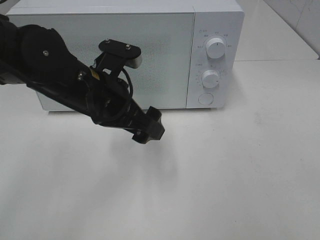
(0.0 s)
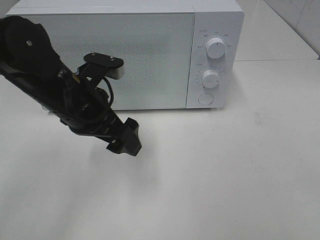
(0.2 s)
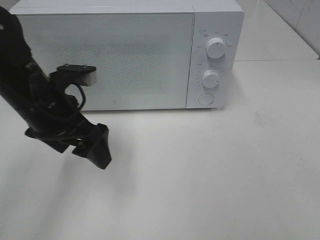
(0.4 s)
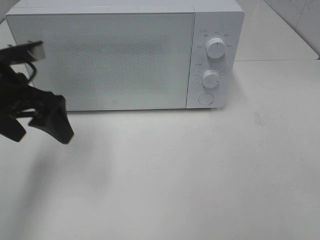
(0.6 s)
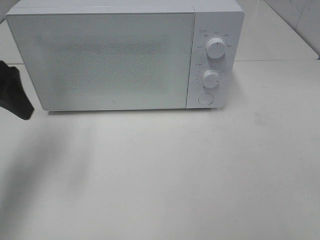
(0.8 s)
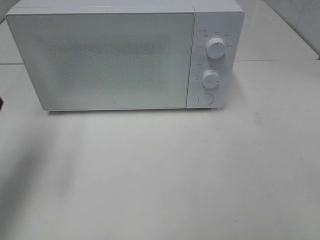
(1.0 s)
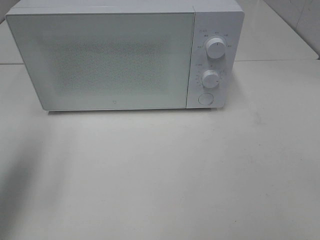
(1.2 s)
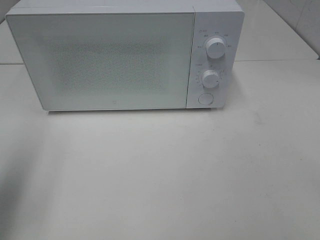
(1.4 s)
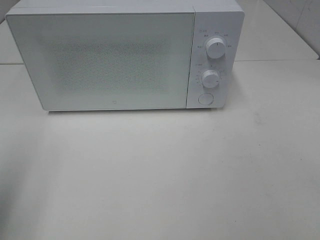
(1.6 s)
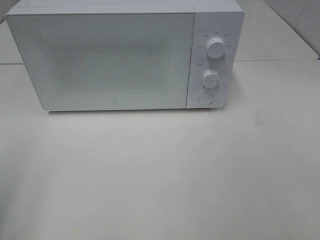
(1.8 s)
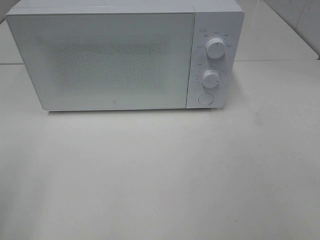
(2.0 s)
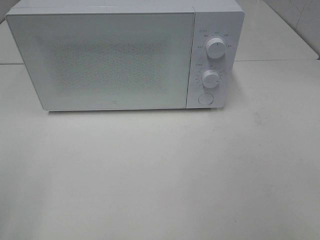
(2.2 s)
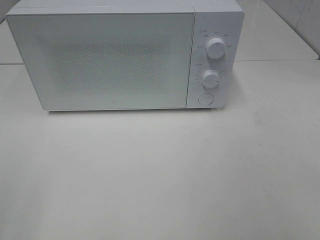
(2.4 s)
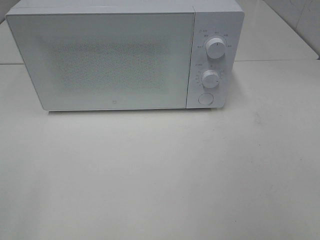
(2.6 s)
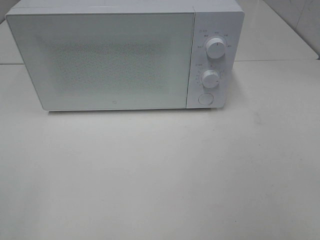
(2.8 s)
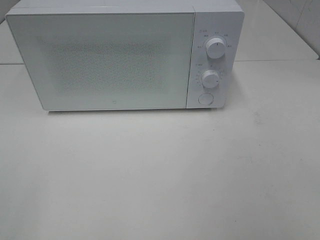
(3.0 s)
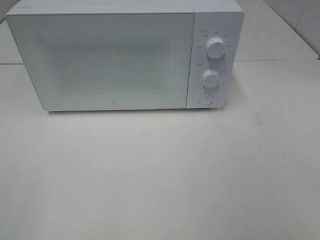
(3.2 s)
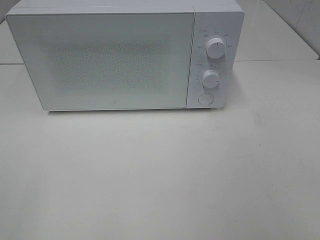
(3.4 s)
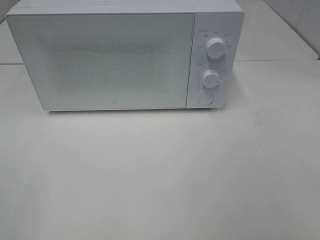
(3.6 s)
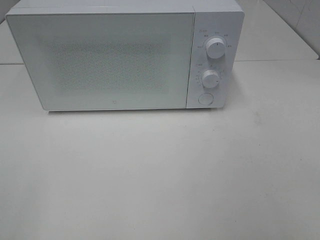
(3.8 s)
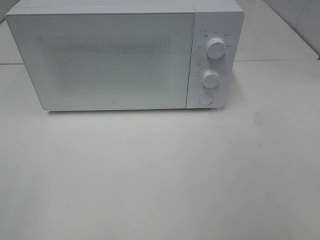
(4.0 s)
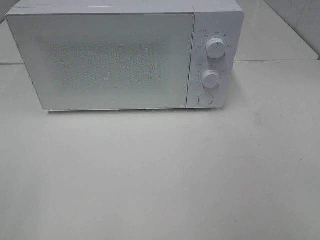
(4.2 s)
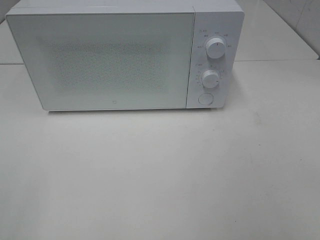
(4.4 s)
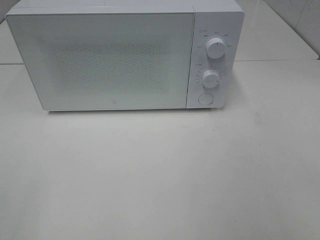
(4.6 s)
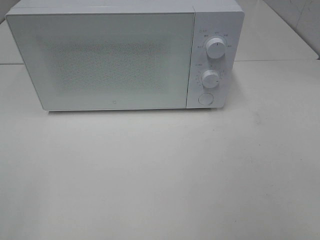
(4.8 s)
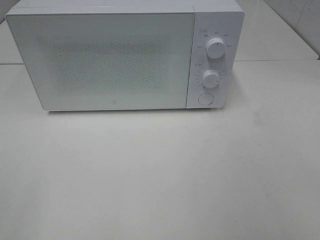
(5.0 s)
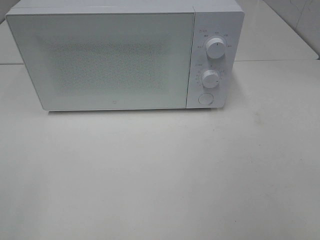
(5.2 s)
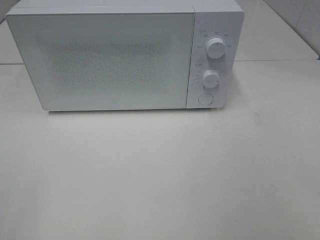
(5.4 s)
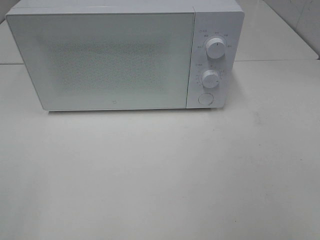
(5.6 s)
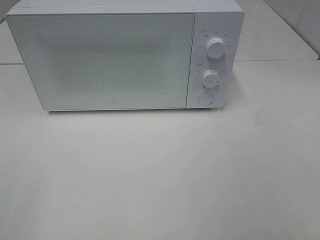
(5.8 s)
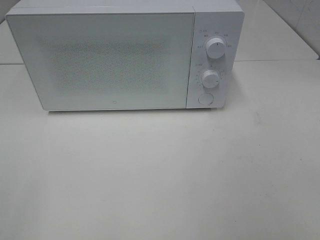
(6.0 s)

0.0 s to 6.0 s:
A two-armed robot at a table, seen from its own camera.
Task of the whole recording: Heat the burger.
0.0 to 1.6 s: The left gripper is displaced to the left, backward and upward by approximately 30 cm.
1.6 to 3.0 s: The left gripper is displaced backward by about 15 cm.
3.0 to 6.0 s: Both grippers stay put.

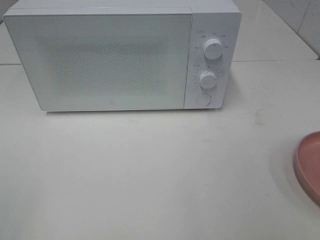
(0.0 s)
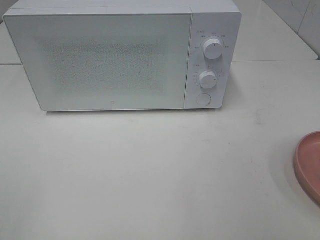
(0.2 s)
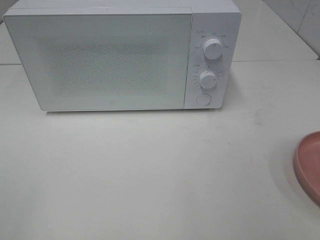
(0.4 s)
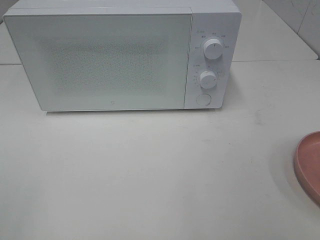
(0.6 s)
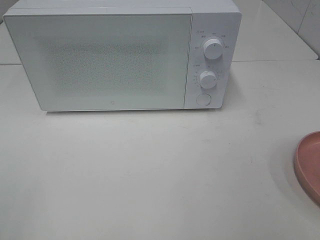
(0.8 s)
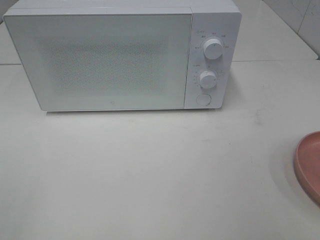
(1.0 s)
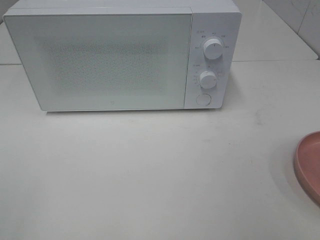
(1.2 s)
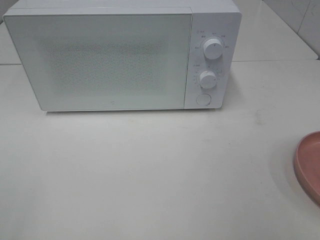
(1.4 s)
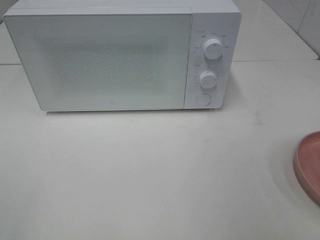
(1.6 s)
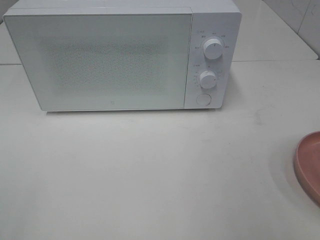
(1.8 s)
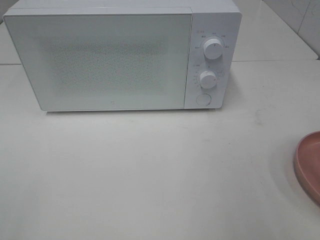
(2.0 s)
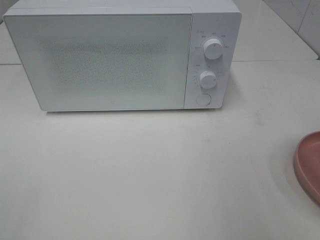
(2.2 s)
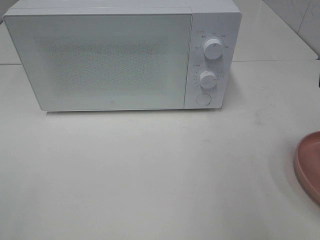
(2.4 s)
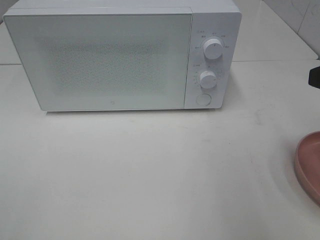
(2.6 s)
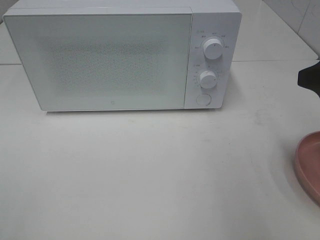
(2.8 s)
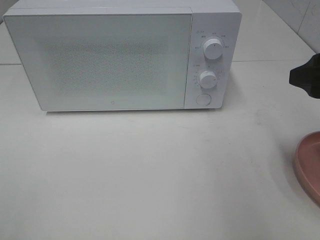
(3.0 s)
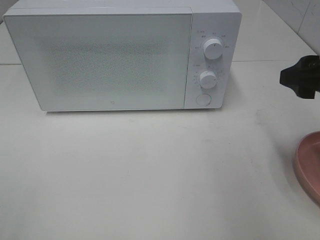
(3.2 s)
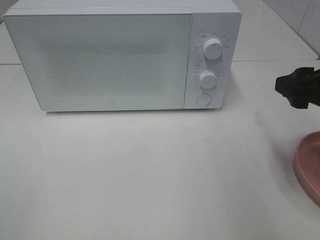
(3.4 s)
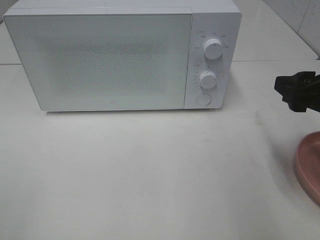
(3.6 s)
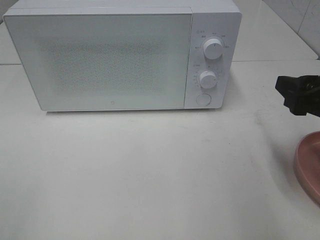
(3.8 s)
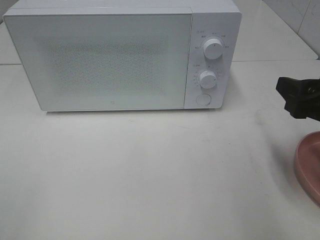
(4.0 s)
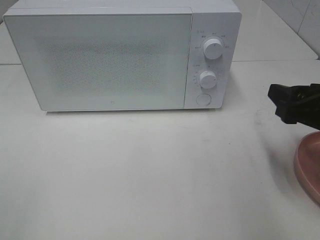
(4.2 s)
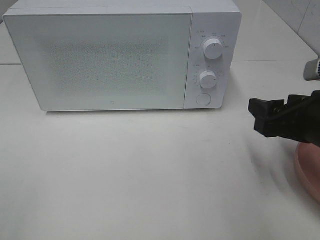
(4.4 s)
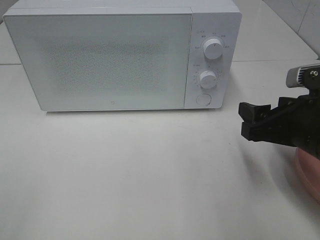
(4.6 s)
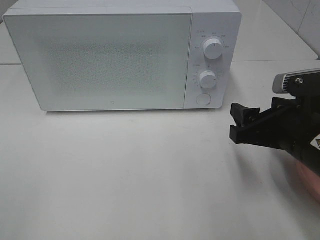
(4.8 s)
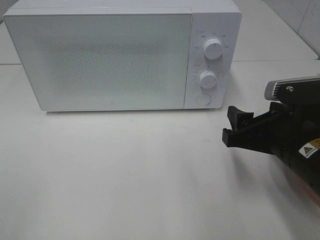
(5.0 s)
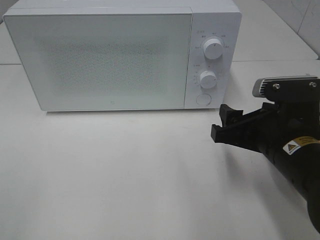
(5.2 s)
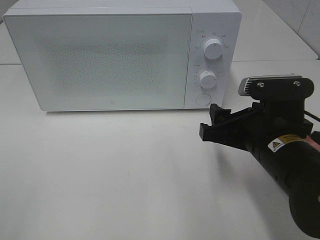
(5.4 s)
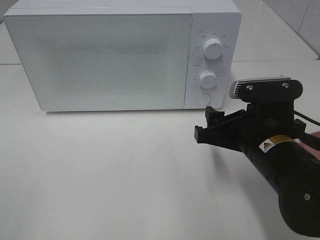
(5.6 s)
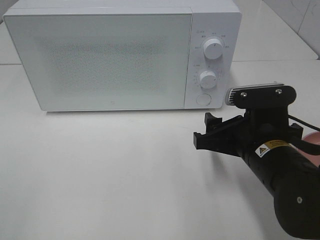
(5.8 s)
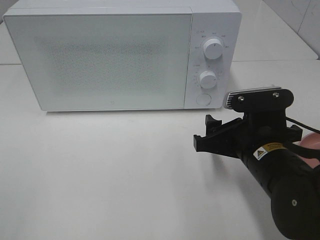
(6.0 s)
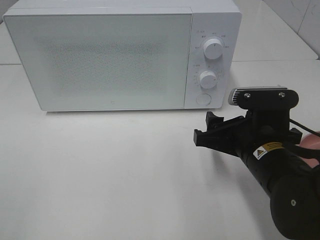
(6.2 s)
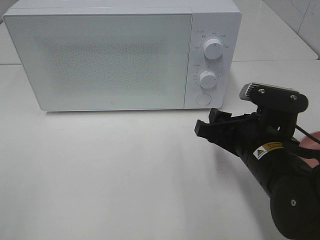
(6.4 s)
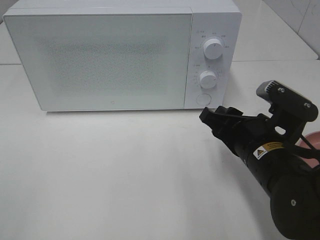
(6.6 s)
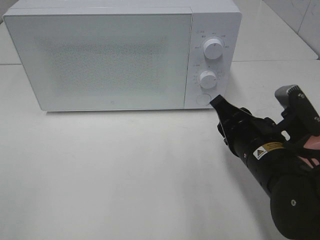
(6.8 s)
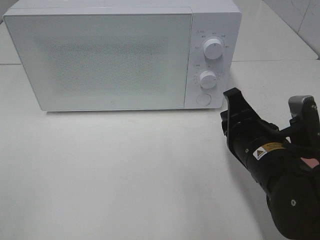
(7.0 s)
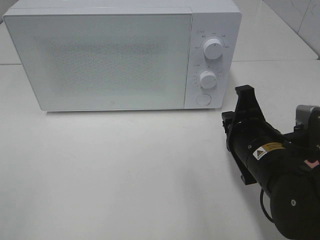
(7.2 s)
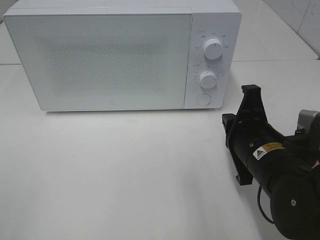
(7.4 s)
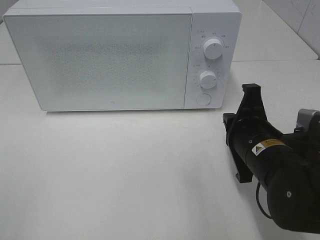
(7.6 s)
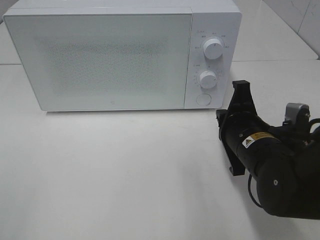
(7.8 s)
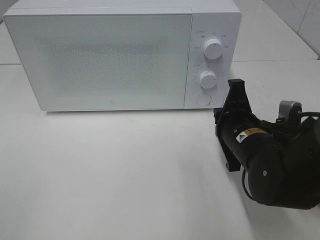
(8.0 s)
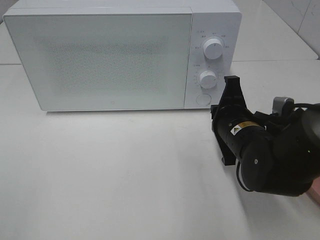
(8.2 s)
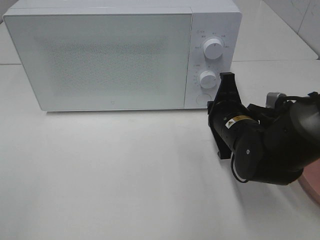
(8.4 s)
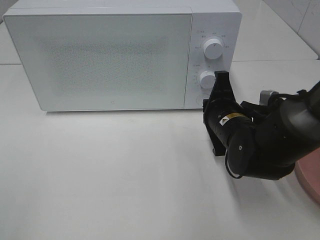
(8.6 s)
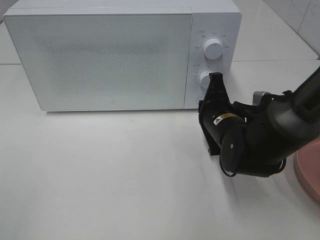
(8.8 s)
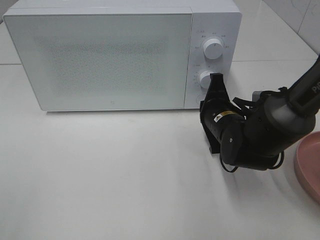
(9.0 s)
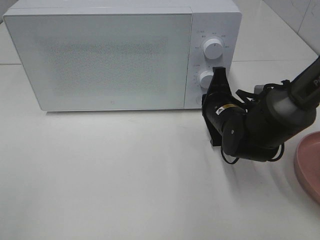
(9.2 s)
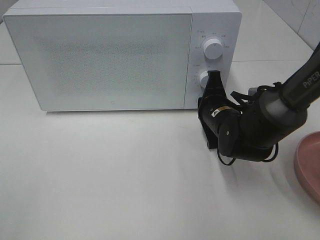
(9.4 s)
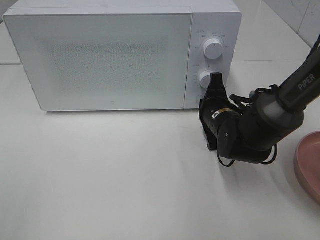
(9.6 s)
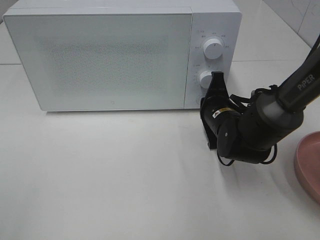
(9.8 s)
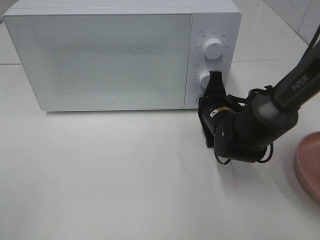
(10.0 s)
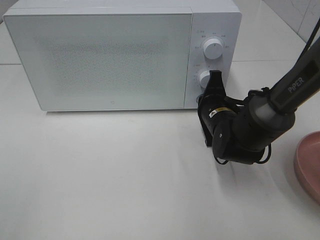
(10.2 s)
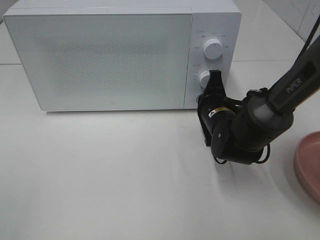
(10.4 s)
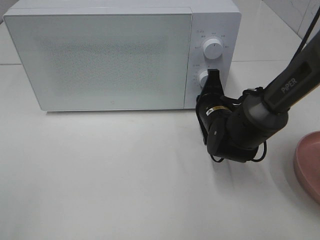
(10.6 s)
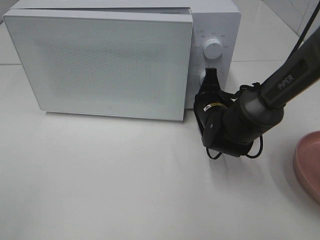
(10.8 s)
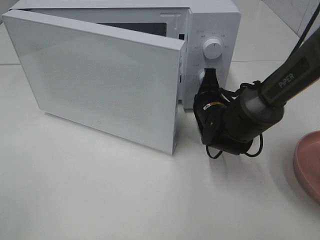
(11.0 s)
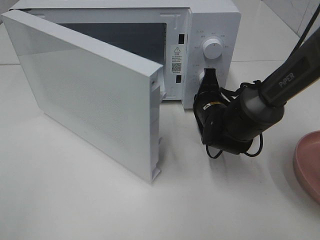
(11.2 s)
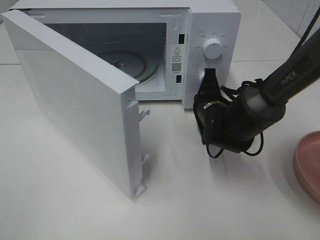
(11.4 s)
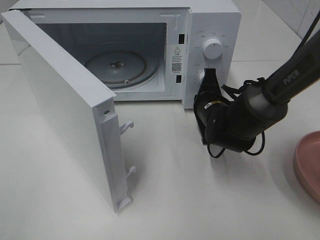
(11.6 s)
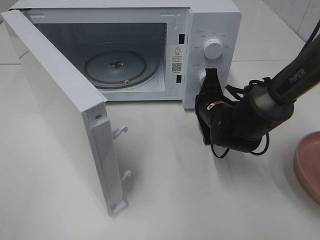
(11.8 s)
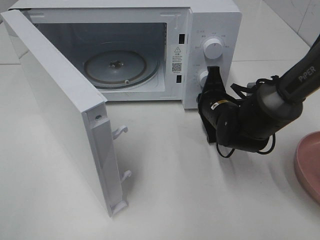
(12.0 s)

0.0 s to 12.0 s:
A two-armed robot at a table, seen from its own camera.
Task of the whole recording: Heat the burger.
1.6 to 3.0 s: The right gripper is displaced forward by about 15 cm.
3.0 to 4.4 s: The right gripper shifts some 10 cm downward.
4.4 to 6.0 s: The right gripper heads to the left, covering approximately 10 cm.
6.0 to 7.6 s: The right gripper closes its fingers.
7.6 to 9.0 s: The right gripper is displaced forward by some 10 cm.
9.0 to 10.4 s: The grippers stay close to where they were, moving slightly.

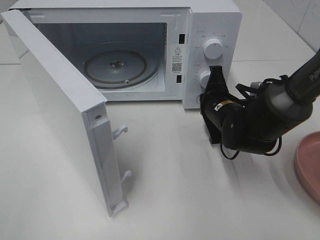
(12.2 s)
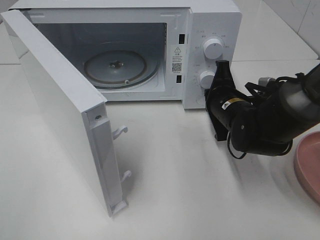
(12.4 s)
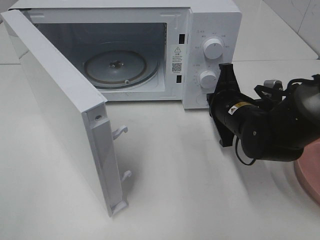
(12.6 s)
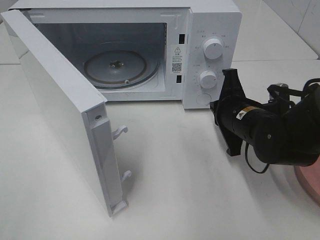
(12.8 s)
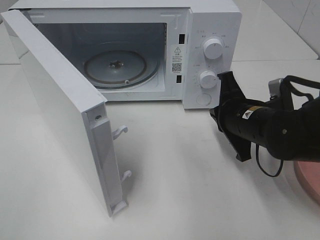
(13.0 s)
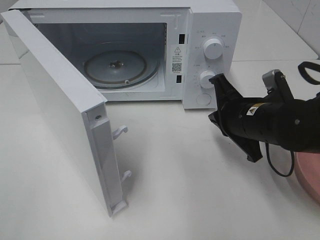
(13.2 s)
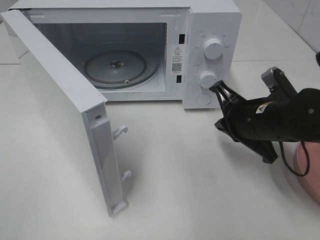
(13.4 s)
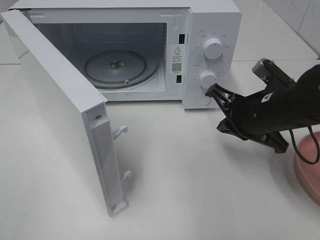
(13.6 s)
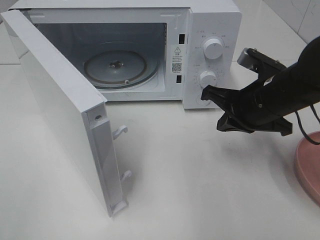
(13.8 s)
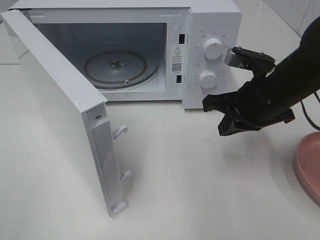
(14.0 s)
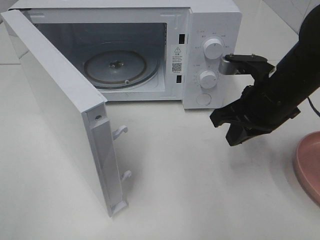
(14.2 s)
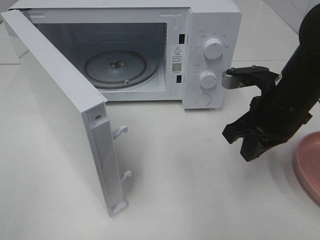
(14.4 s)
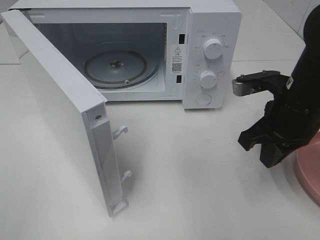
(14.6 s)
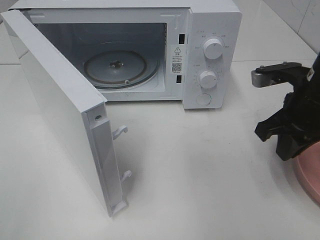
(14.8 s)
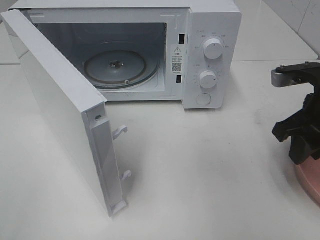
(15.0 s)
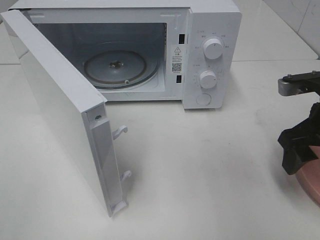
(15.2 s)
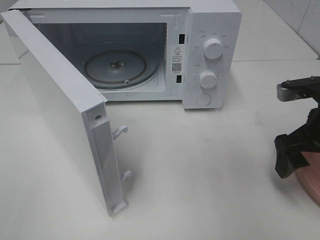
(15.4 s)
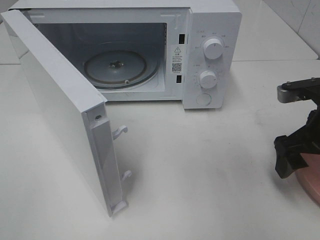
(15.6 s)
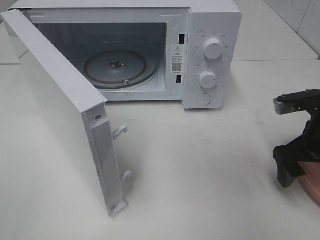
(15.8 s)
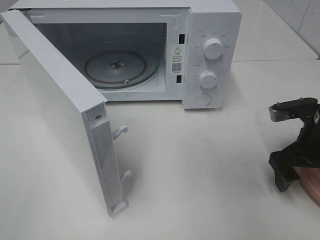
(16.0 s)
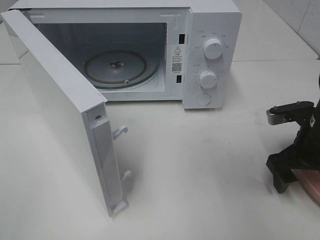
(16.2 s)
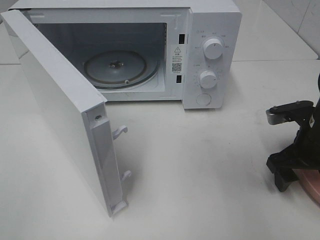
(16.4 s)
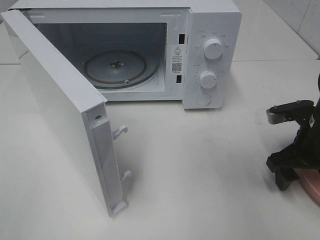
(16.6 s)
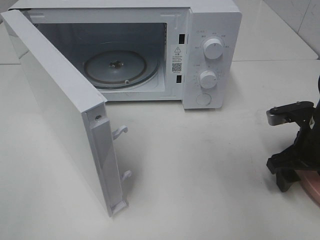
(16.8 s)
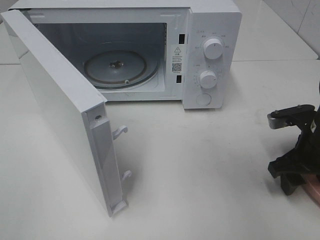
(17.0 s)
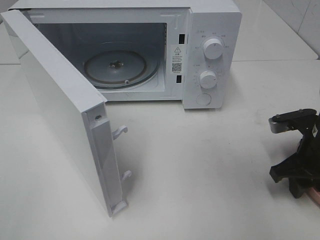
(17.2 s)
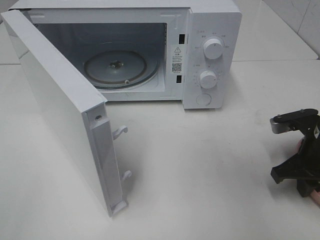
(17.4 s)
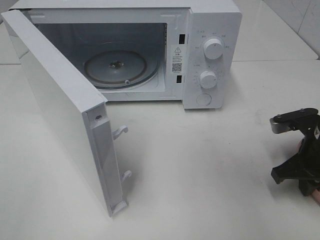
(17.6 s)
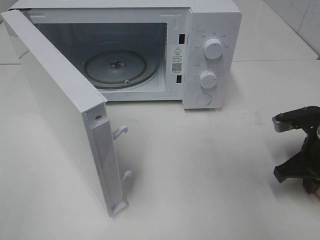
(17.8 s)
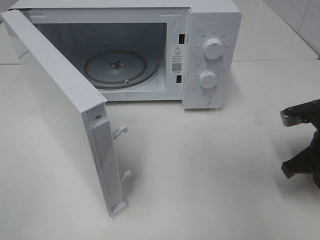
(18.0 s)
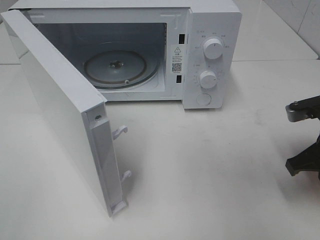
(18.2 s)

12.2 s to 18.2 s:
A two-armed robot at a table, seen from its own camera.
Task of the whole recording: Heat the burger.
Step, 12.6 to 17.8 s: Right hand: grab the plate with the hamburger.
12.2 to 13.8 s: The right gripper moves upward and backward, approximately 10 cm.
13.8 to 15.2 s: The right gripper moves to the right, about 10 cm, and opens its fingers.
15.2 to 16.6 s: The right gripper heads downward, covering some 5 cm.
16.6 to 18.2 s: The right gripper closes.
